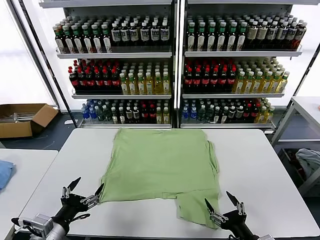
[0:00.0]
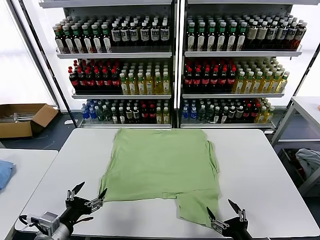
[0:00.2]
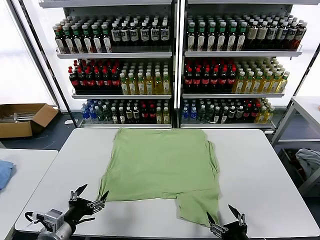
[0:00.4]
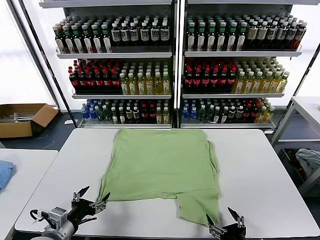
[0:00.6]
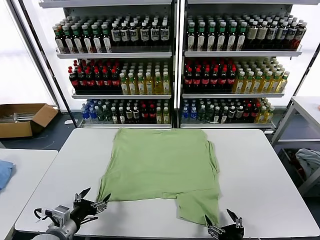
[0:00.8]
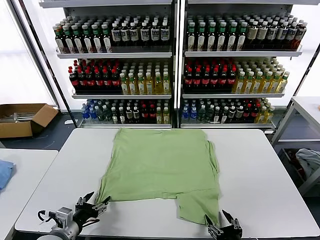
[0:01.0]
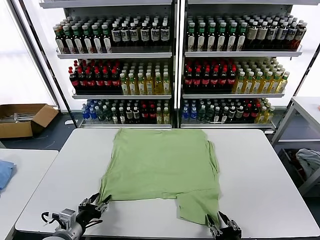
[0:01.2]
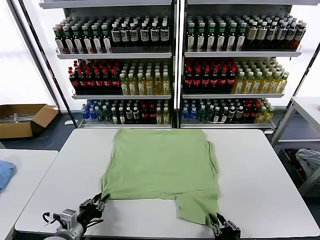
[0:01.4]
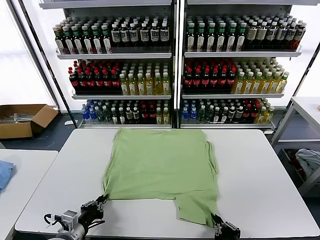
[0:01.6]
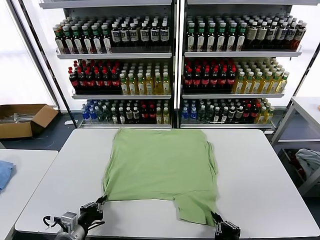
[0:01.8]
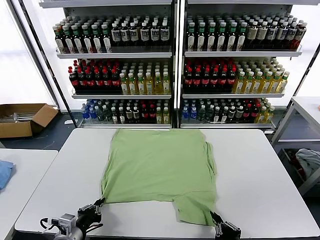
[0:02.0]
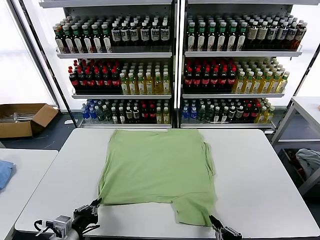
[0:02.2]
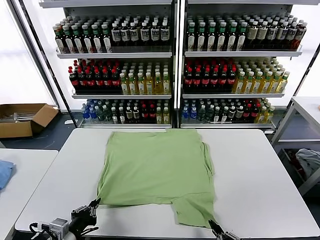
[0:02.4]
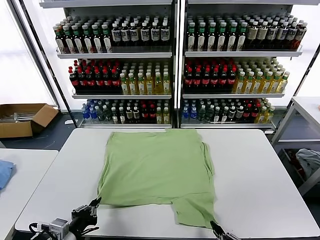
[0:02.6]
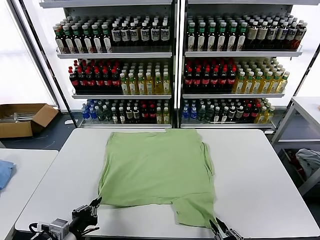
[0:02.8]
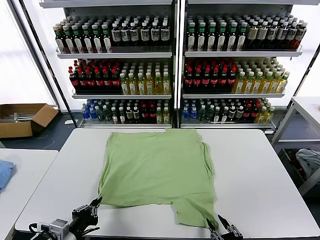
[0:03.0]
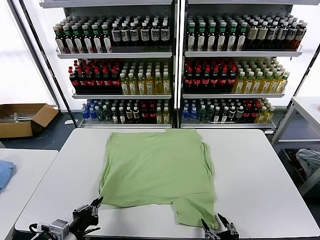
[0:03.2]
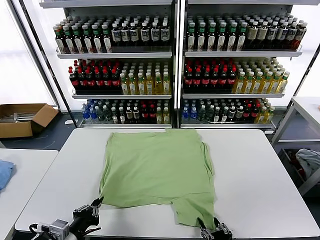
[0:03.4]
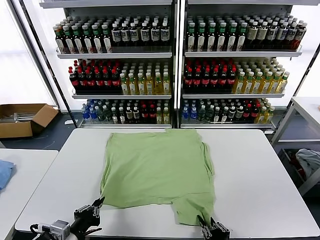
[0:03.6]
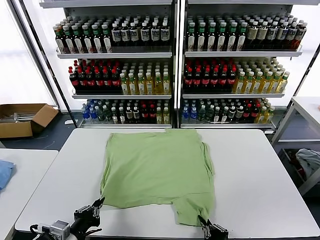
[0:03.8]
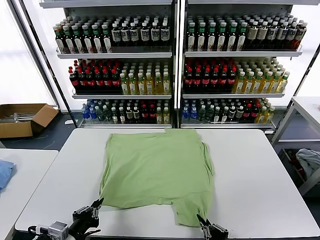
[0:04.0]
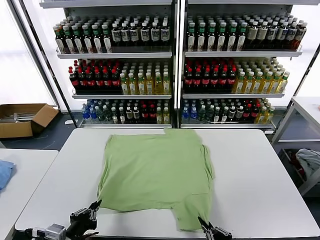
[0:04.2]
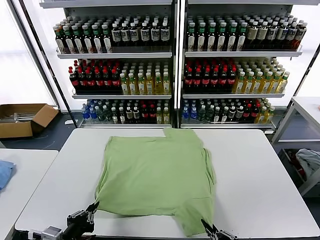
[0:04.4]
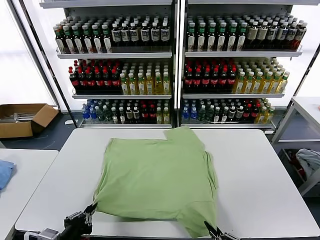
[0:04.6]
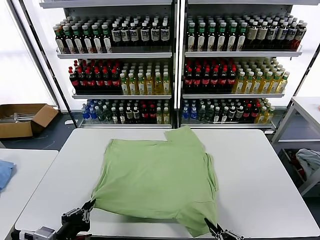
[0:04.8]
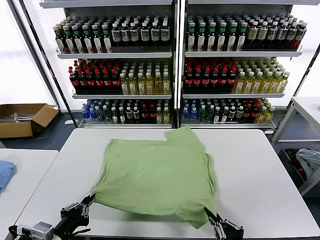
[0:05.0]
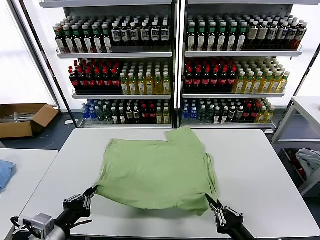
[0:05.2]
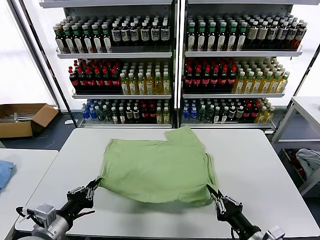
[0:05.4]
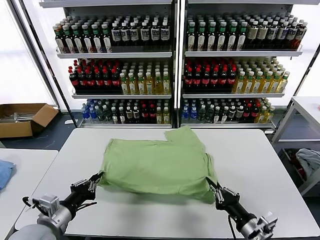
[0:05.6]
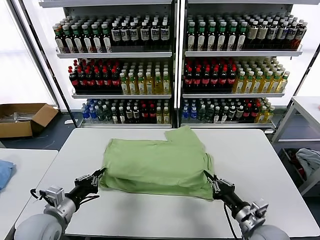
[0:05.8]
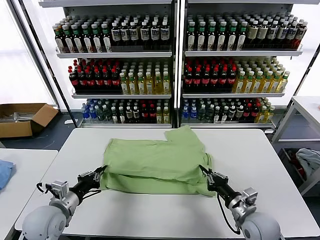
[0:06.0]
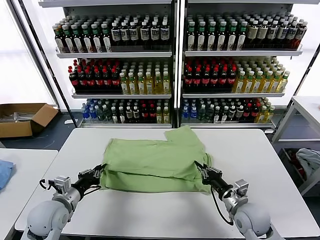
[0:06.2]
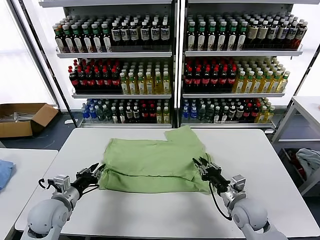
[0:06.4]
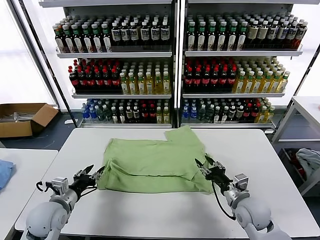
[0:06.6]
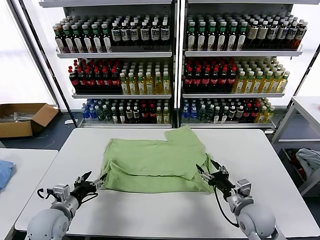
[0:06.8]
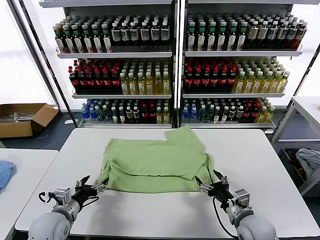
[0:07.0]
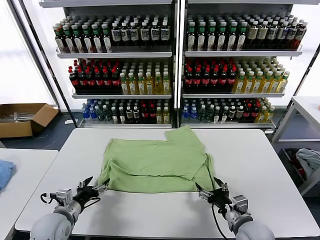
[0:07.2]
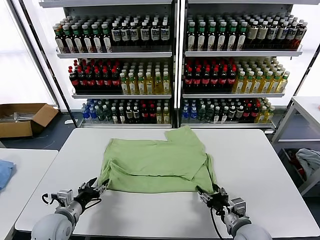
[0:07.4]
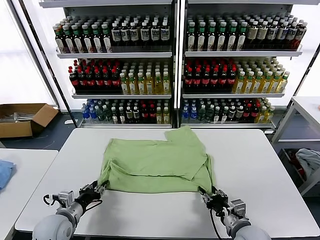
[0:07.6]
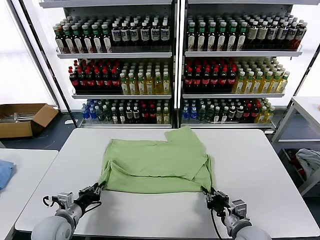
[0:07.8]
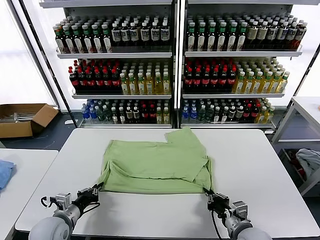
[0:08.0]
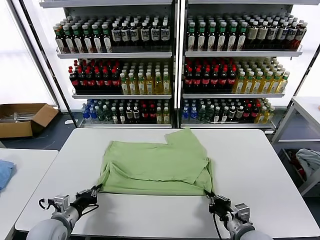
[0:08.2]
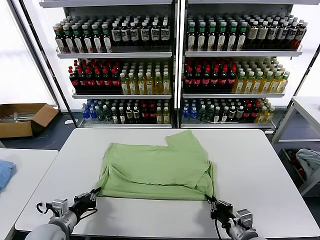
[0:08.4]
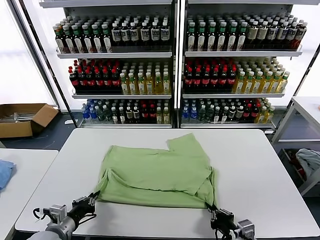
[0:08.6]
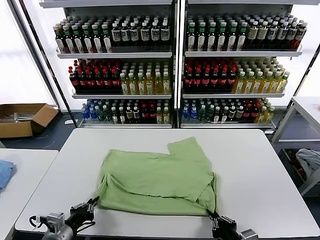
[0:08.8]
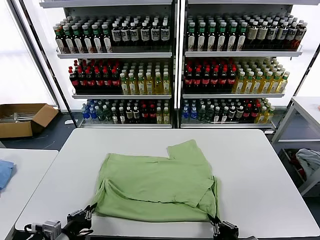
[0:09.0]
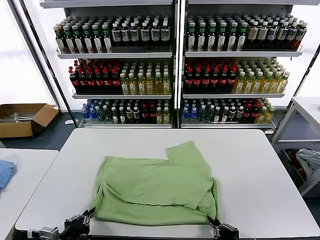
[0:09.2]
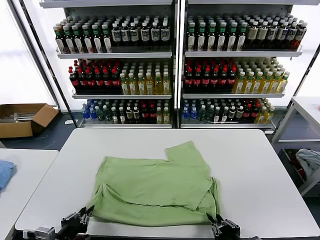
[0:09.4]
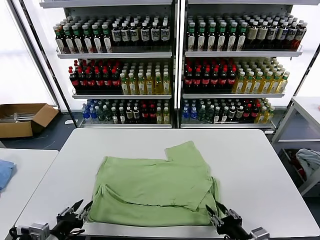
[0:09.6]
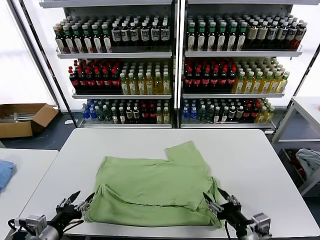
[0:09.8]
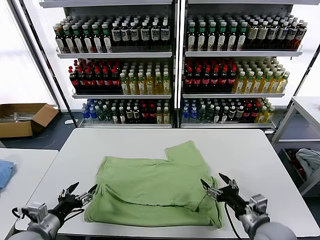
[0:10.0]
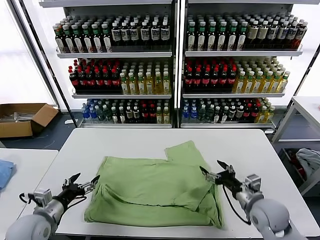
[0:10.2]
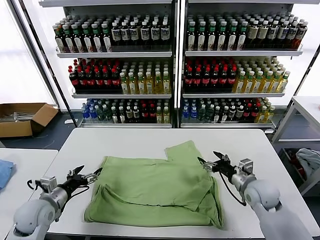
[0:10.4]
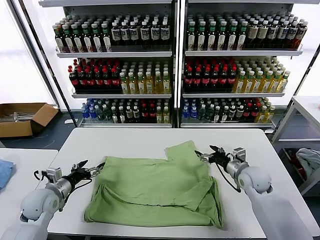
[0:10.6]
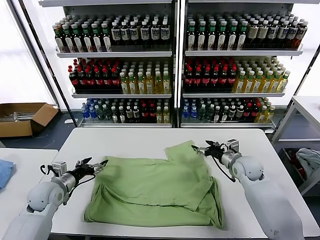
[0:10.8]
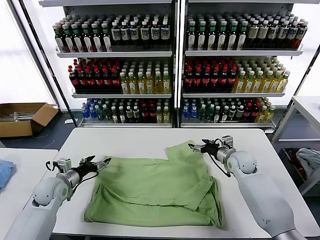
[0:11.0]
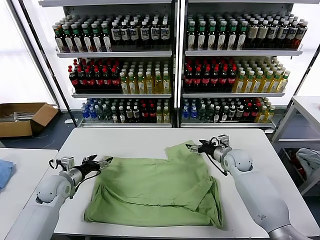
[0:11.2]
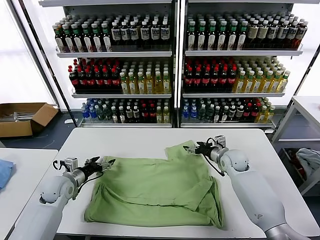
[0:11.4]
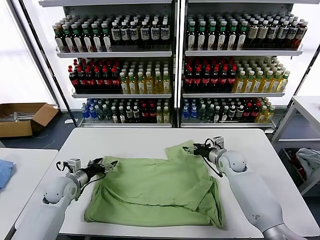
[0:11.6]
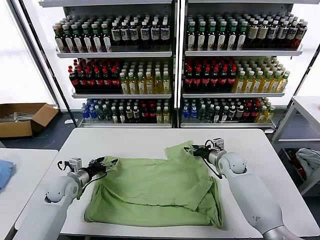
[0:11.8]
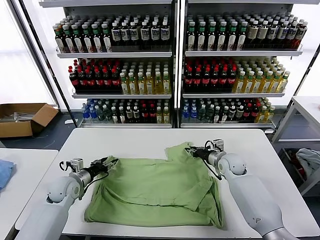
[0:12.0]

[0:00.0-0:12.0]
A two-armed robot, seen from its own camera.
Task of the whole recording: fold and organize the clothes.
Step, 0.0 to 1.6 s: use both grippers simultaneously to clamp the lower edge of the clothing fabric.
Step, 1.8 to 6.6 s: use both grippers to drag the lower edge of the fabric forward and fold it over the upper edge.
Step, 6.8 to 9.4 s: Drag the clothes downward with both gripper.
1.6 to 3.0 s: The right gripper opens. The left gripper travels upward by about 5 cm.
3.0 to 4.4 s: The right gripper closes its fingers.
4.4 to 6.0 s: The left gripper heads forward, covering approximately 15 cm; the right gripper is displaced forward by some 20 cm.
6.0 to 7.6 s: The left gripper is displaced downward by some 5 cm, and opens up; the right gripper heads backward, covering roughly 5 cm, and opens and closes again.
7.6 to 9.0 s: Both grippers move backward, roughly 10 cm. The left gripper closes its fingers.
9.0 to 10.4 s: The right gripper goes approximately 25 cm forward, and opens its fingers. Meanwhile the left gripper shifts about 15 cm forward and to the left, and opens.
10.4 to 12.0 s: Both grippers move forward, roughly 10 cm. The right gripper closes its fingers; the left gripper closes up.

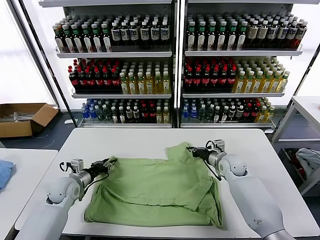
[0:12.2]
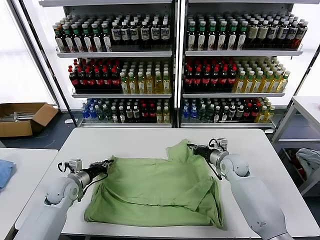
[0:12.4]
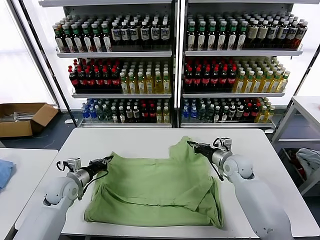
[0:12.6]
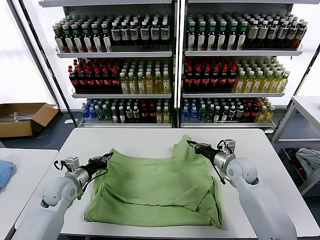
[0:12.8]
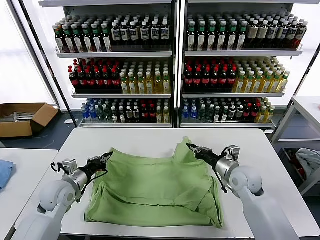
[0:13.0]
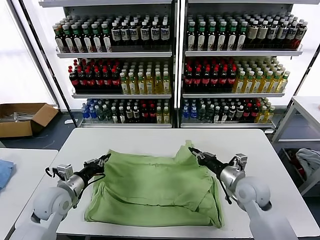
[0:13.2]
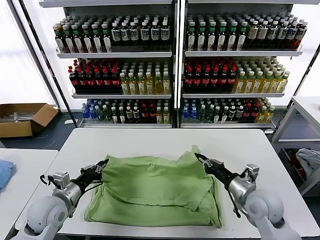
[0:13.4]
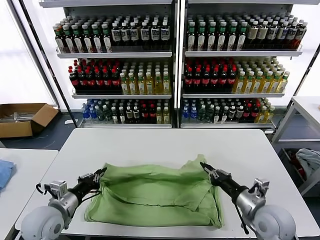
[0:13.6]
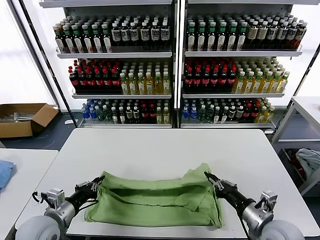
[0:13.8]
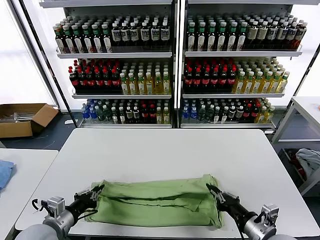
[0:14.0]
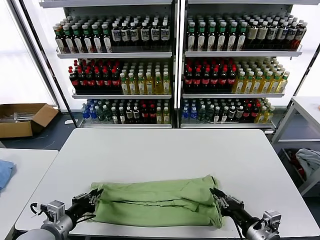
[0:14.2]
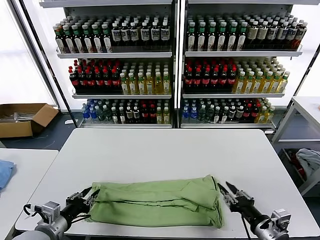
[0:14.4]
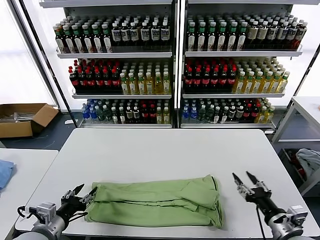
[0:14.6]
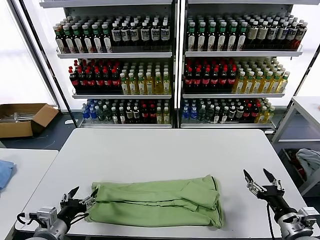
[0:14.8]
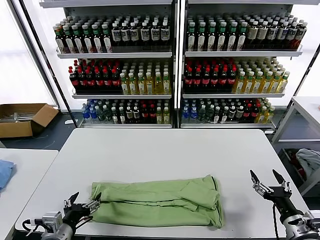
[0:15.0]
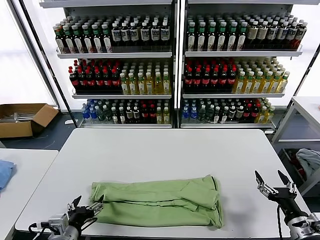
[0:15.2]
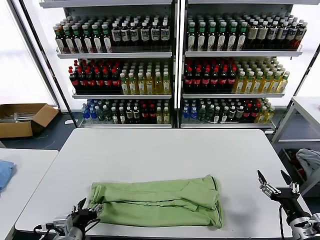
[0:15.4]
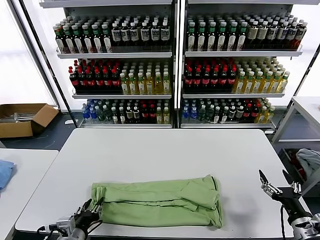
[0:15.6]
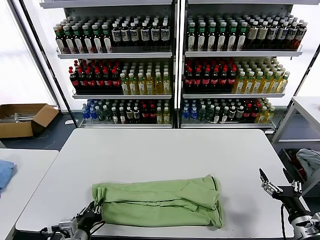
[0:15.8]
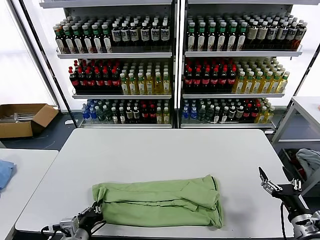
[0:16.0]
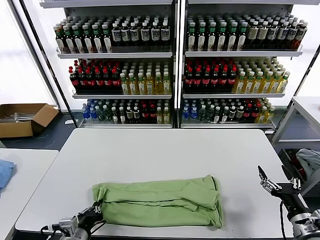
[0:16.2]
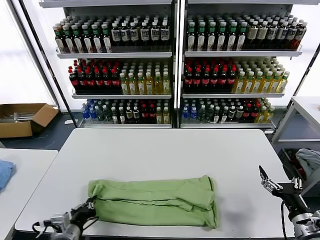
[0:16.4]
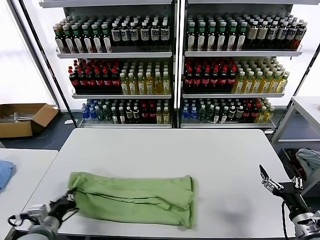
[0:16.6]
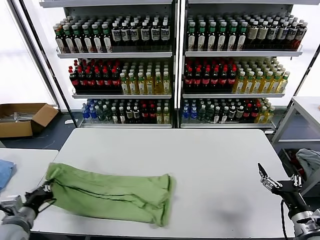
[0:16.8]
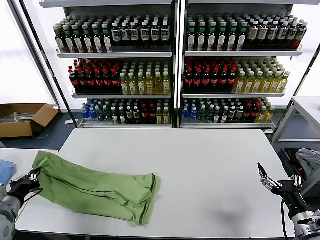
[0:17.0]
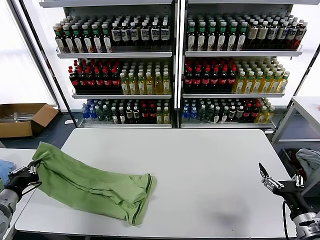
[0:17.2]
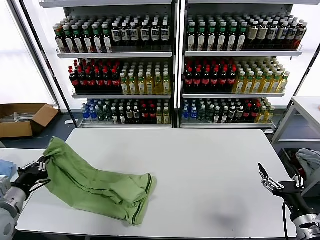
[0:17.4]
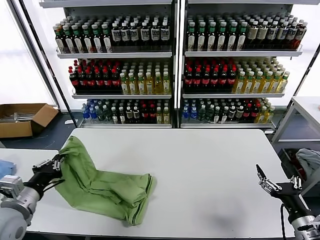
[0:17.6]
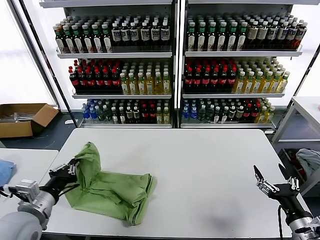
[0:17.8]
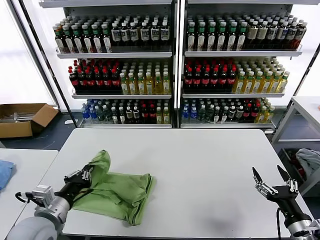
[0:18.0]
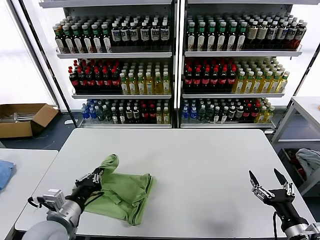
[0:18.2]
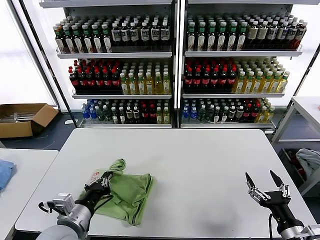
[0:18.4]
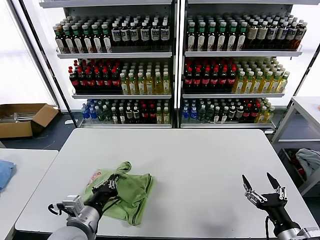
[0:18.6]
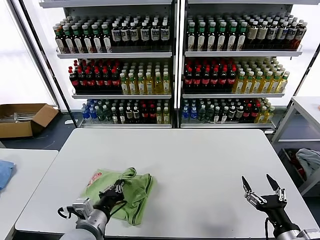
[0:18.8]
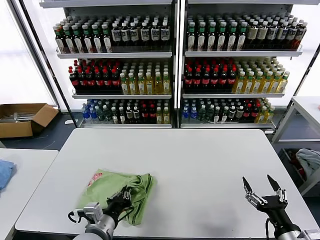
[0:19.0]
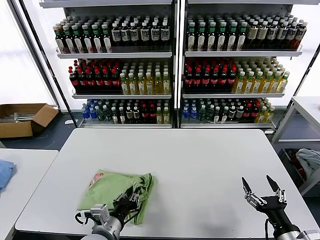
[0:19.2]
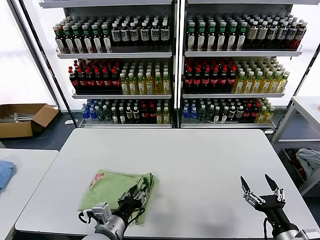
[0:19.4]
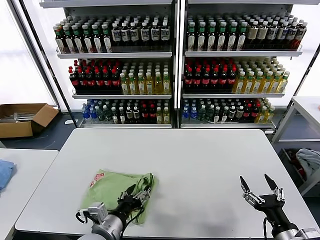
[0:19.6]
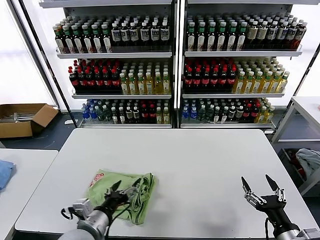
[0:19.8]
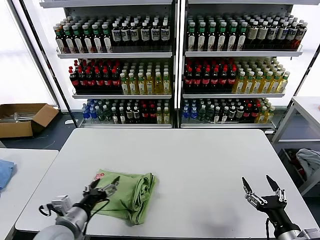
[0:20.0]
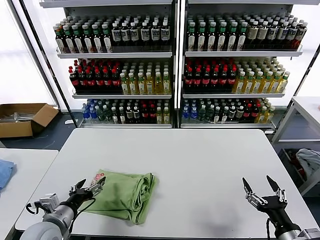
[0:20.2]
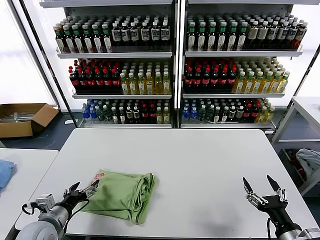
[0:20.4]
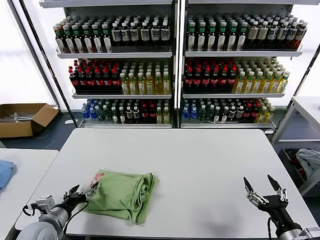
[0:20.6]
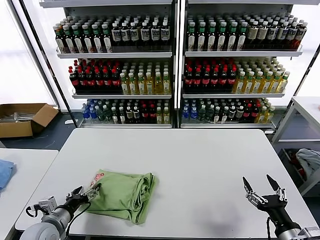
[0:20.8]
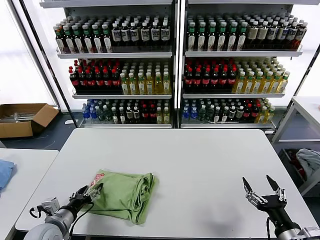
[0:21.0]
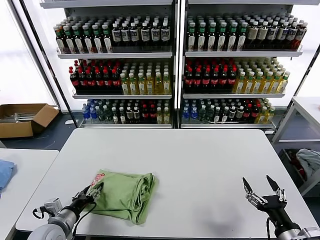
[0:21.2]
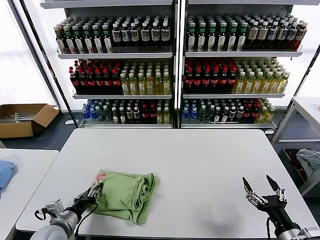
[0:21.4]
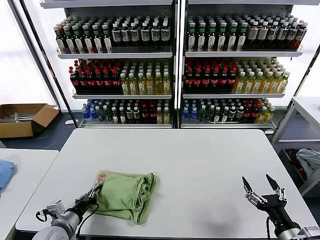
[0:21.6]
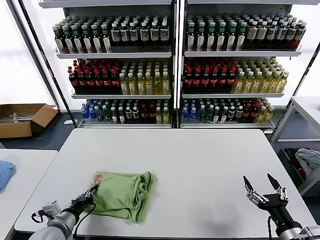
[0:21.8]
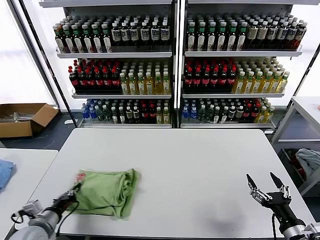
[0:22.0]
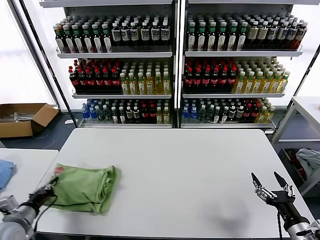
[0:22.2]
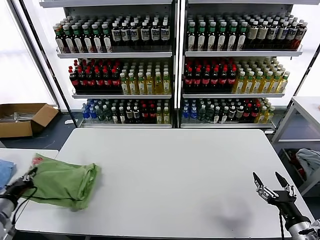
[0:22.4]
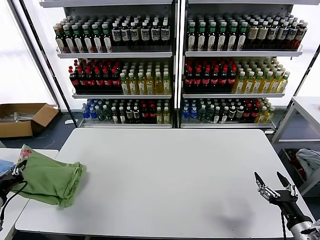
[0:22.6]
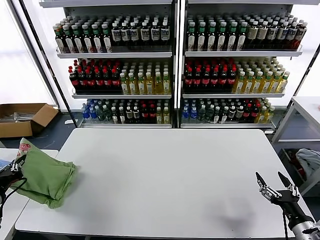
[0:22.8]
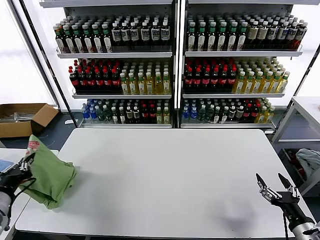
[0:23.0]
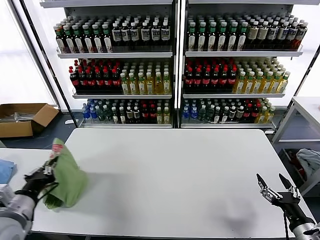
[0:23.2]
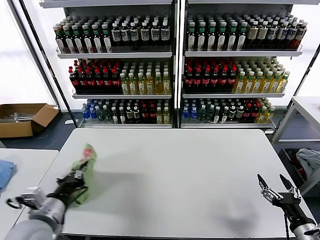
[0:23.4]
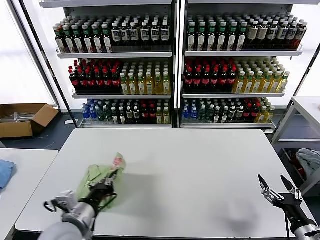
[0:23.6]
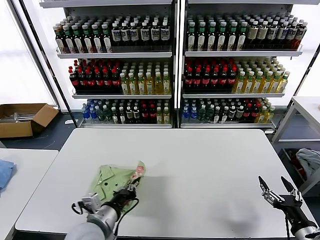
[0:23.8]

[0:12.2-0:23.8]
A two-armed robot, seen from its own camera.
Task of the whole recording: fold and organize the clothes.
Step, 12.6 to 14.4 s: use both grippers to drag the upper edge of the fabric backward and fold it over the lower edge.
Step, 14.6 to 16.0 s: use the left gripper to clamp the left edge of the fabric.
Step, 16.2 to 19.6 s: use the left gripper to drag the left edge of the fabric to the left and folds it over the right edge.
12.2 to 13.6 s: The left gripper goes approximately 15 cm backward and upward, and closes its fingers. The right gripper goes some 25 cm backward.
13.6 to 15.0 s: The left gripper heads backward, covering roughly 10 cm, and opens, while the right gripper is displaced to the right and backward by about 10 cm, and opens.
15.0 to 16.6 s: The left gripper closes its fingers.
16.6 to 18.0 s: The left gripper moves upward, about 5 cm, and travels to the left and back again, approximately 10 cm each way.
18.0 to 19.4 s: The left gripper travels to the right and downward by some 15 cm, and opens.
19.4 to 21.0 s: The left gripper goes roughly 20 cm to the left, and opens up.
21.0 to 22.4 s: The left gripper goes about 15 cm to the left and upward, and closes up.
22.4 to 23.8 s: The left gripper goes about 25 cm to the right.
